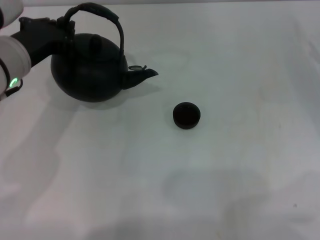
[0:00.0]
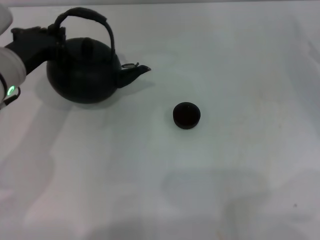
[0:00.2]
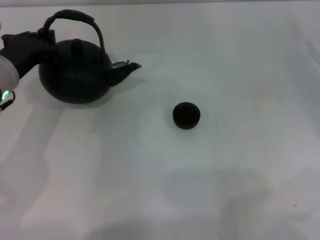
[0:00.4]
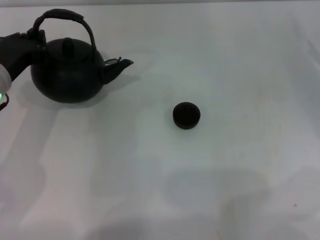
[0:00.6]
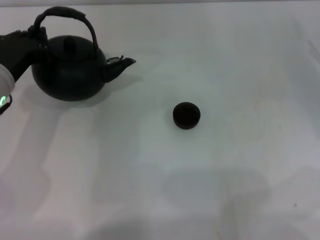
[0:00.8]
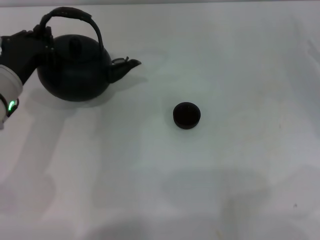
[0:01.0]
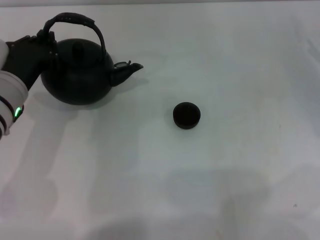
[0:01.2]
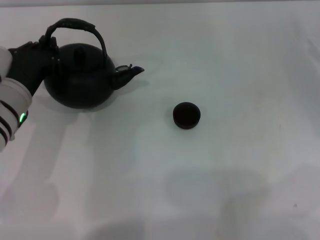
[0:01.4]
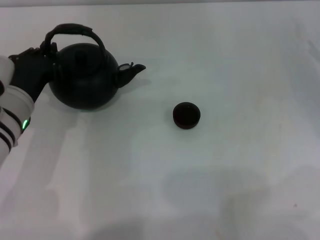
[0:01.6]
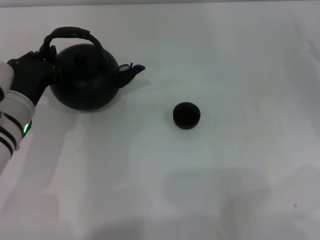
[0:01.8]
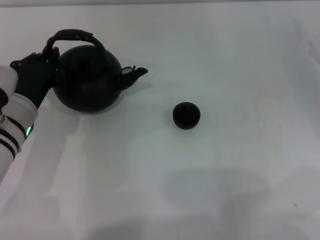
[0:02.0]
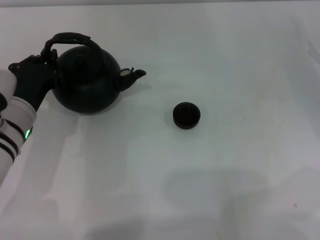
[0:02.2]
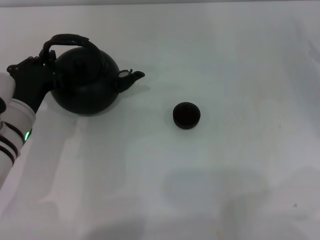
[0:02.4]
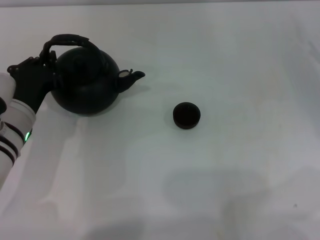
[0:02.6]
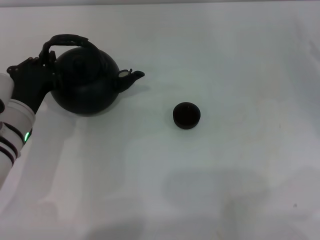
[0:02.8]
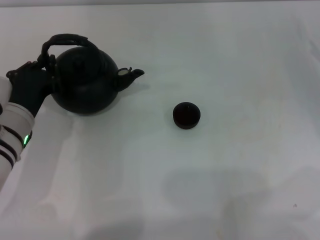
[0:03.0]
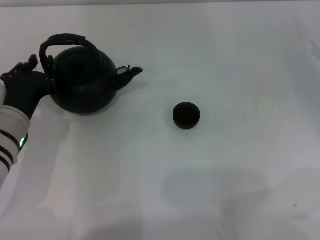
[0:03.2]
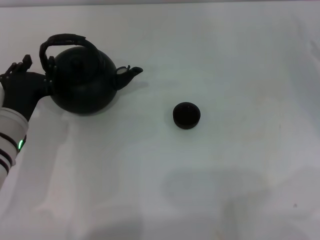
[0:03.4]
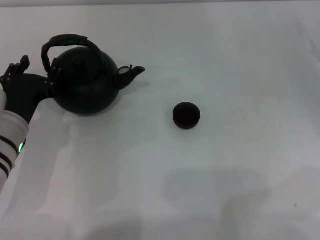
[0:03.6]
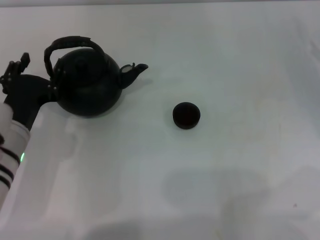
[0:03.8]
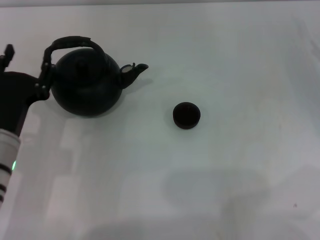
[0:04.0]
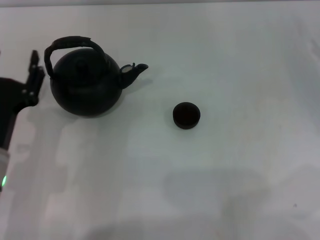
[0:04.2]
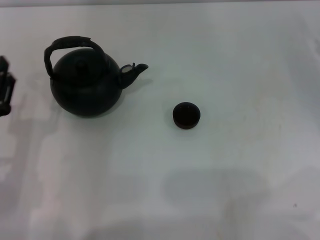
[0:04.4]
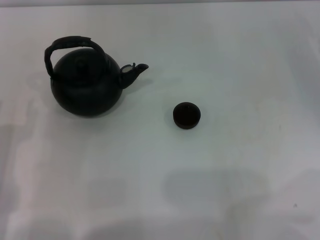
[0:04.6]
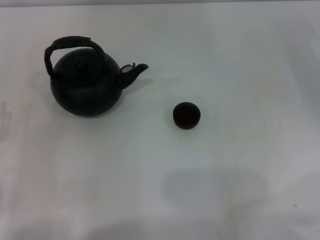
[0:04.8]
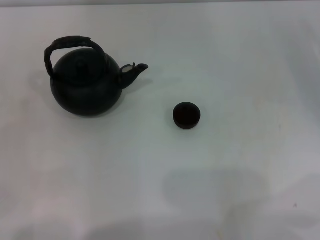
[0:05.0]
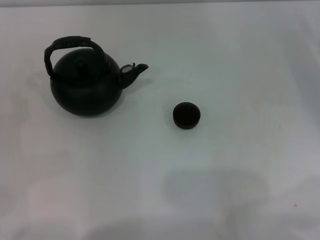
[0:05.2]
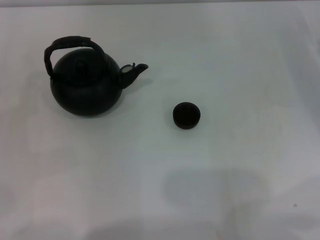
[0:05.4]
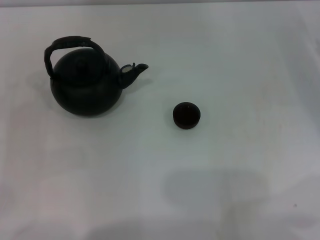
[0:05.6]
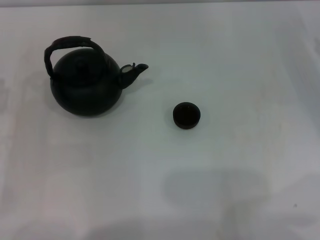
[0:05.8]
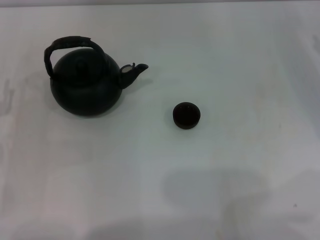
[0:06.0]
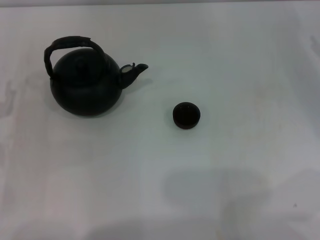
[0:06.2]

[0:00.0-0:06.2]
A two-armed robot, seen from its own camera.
Task of the whole recording: Grasp the handle of the teapot with one hand and pour tea into the teacup.
Step, 0:00.0 to 0:03.8: Put down the teapot with the left gripper.
0:00.0 to 0:01.6: The left gripper goes approximately 10 cm downward.
0:01.6 to 0:03.2: There are only small adjustments of the grippers.
0:03.2 to 0:04.6: The left gripper goes some 10 cm backward and to the left, and opens its fingers.

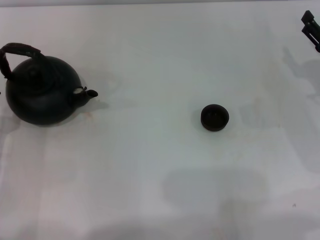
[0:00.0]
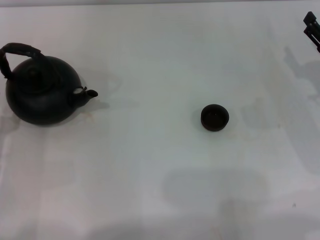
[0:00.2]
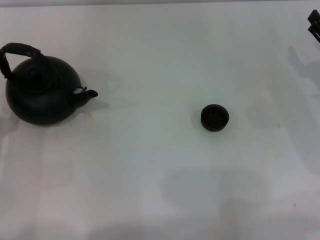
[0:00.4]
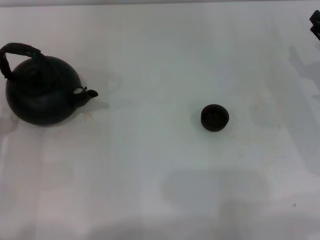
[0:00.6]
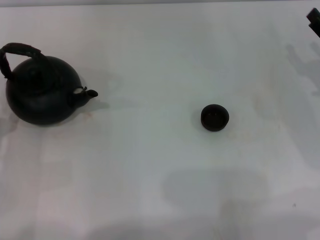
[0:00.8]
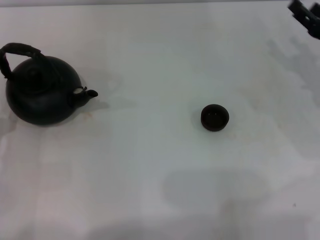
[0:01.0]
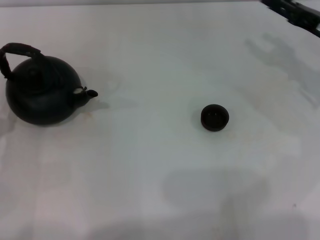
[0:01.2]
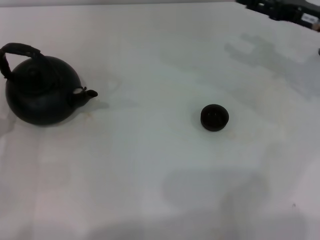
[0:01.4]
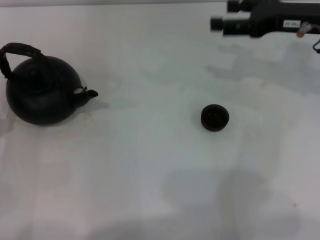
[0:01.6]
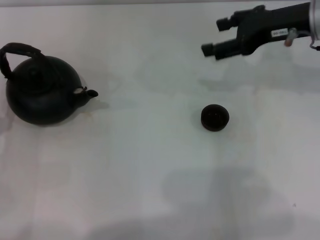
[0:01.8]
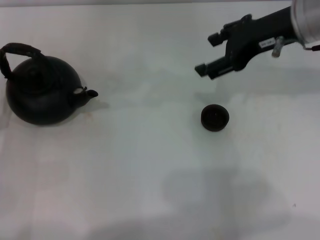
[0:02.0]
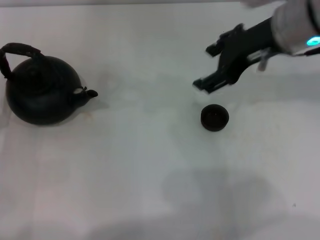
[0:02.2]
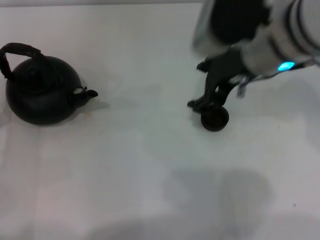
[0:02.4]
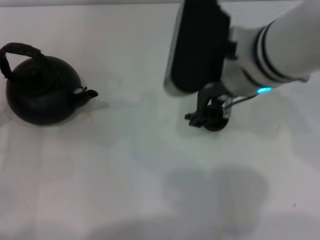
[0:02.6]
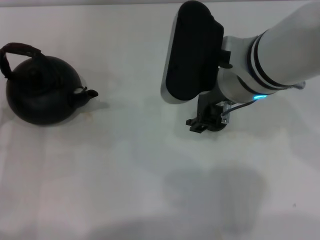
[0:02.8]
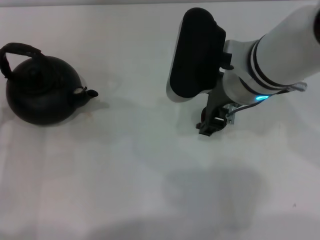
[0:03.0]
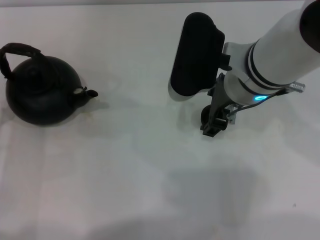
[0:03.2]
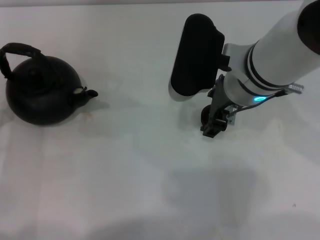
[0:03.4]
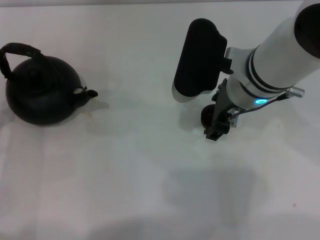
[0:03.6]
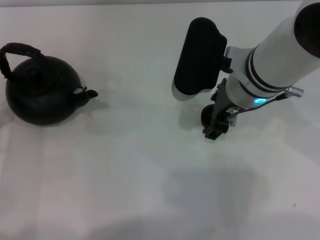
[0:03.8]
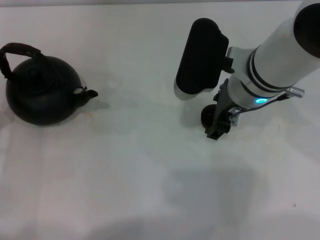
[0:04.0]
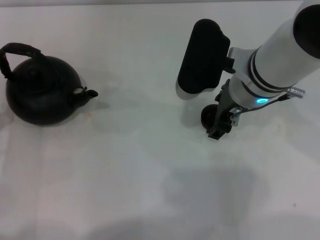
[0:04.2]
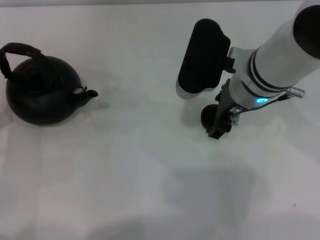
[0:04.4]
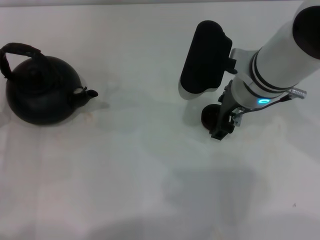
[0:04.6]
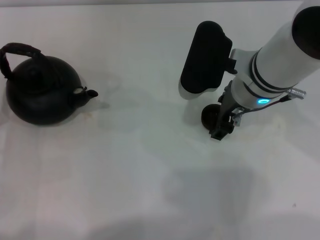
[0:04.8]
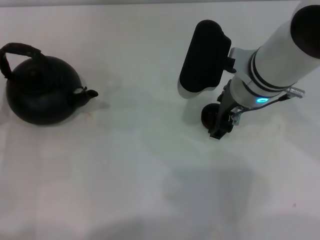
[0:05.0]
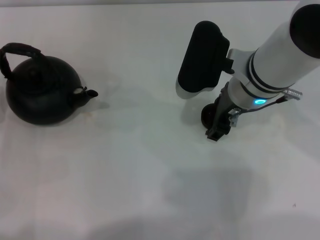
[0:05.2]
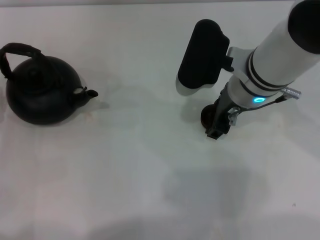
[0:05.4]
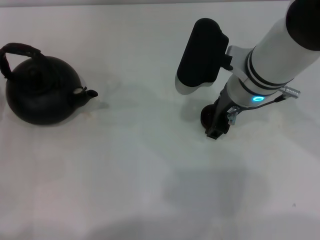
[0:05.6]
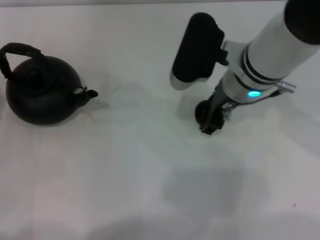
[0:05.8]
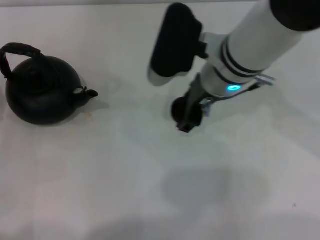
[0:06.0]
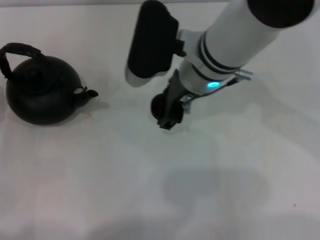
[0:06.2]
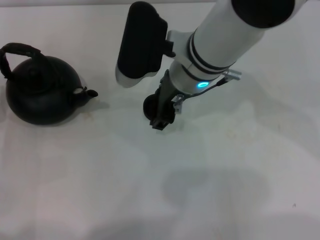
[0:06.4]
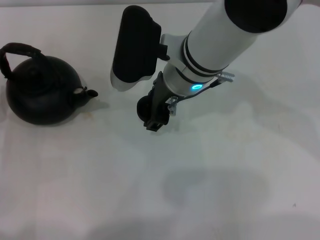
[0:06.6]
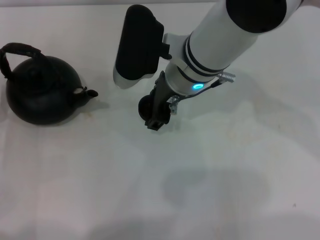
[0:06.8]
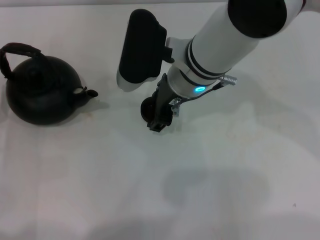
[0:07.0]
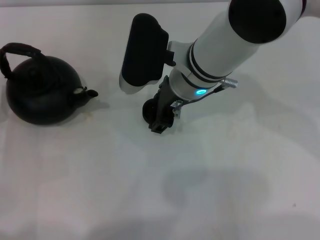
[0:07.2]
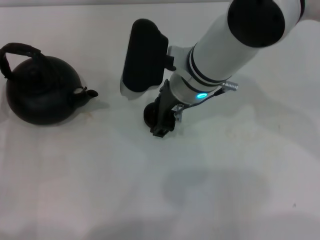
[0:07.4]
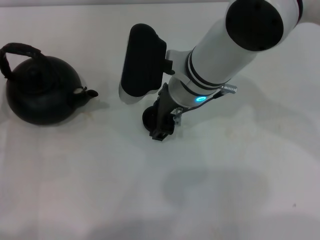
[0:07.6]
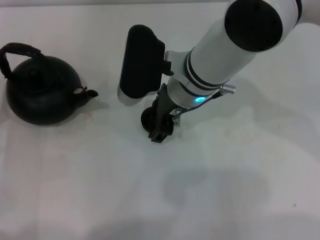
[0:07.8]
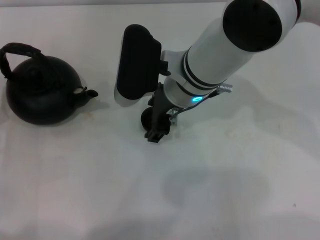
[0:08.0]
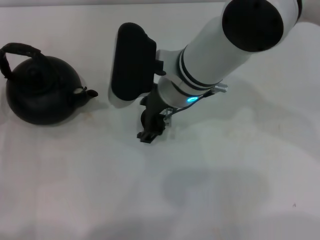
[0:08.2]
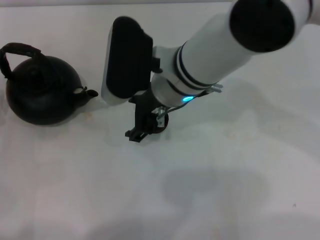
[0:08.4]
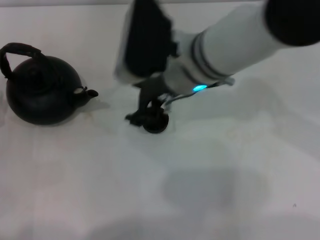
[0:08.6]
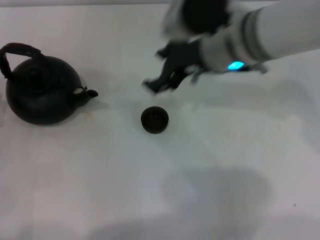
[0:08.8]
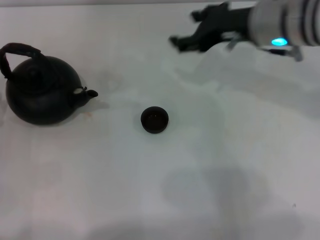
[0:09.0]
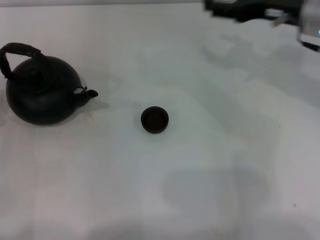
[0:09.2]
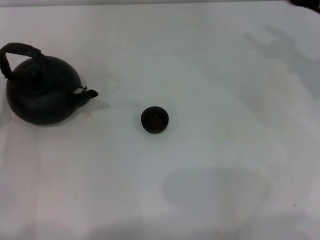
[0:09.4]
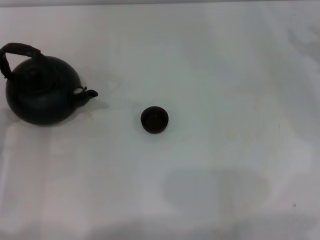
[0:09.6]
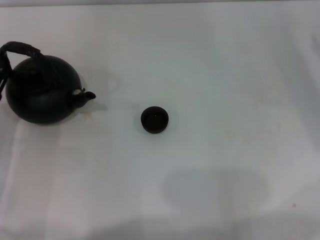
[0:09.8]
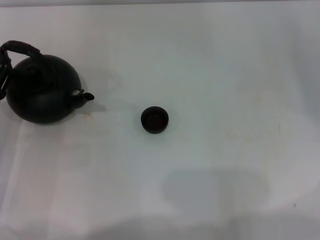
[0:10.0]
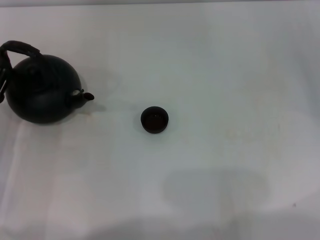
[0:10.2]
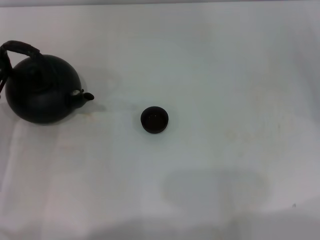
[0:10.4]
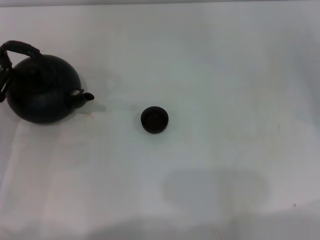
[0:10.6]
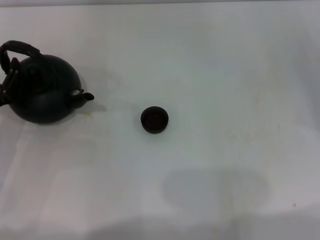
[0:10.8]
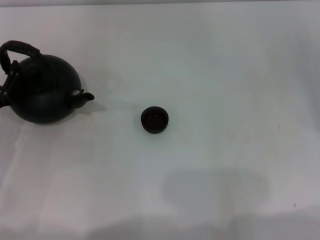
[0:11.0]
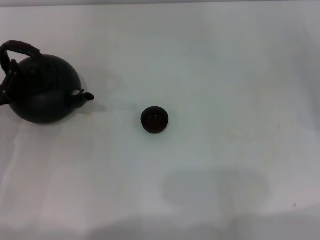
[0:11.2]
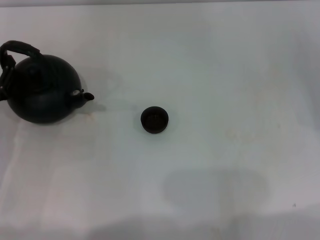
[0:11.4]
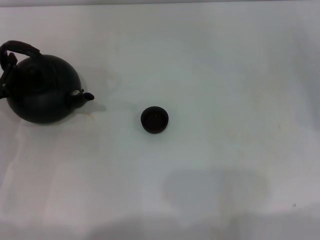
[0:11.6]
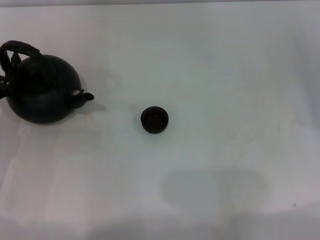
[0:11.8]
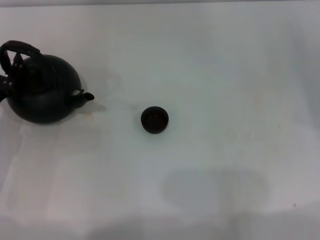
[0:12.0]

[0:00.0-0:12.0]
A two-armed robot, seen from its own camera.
Task of the whole recording: Grasp the handle of the teapot with one hand and pour tea into the teacup.
Step, 0:00.0 to 0:05.6: Pick up the teacup with the right gripper.
Step, 0:05.8 to 0:08.6: Place the teacup in the center of view with the right gripper.
0:00.0 to 0:01.6: The right gripper travels upward, forward and to the left by roughly 15 cm.
0:01.6 to 0:03.0: The right gripper shifts roughly 15 cm to the left and backward.
0:03.0 to 0:04.4: The grippers make only small movements.
0:04.4 to 0:06.0: The right gripper closes.
0:06.0 to 0:07.6: The grippers make only small movements.
0:07.6 to 0:09.0: The right gripper travels to the right and upward by roughly 15 cm, and opens up.
0:09.0 to 0:10.4: The right gripper travels to the right and downward by approximately 25 cm.

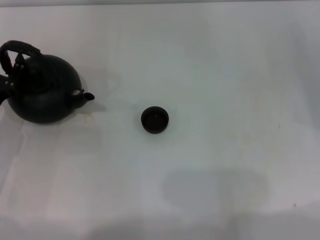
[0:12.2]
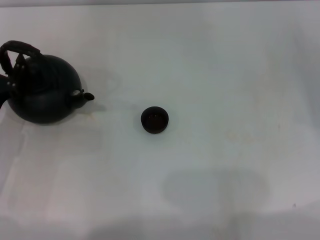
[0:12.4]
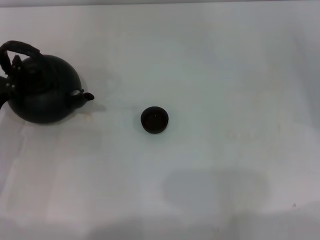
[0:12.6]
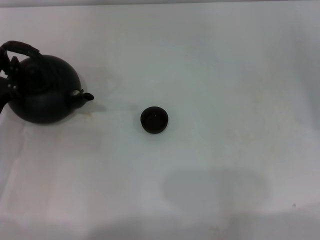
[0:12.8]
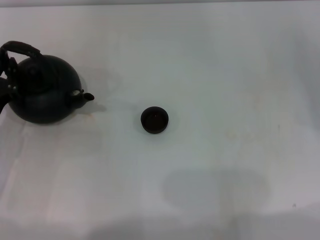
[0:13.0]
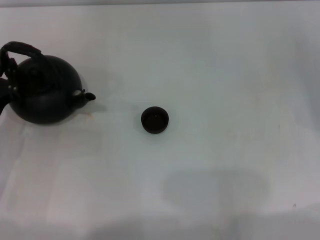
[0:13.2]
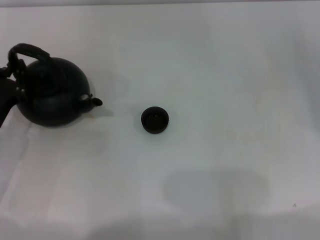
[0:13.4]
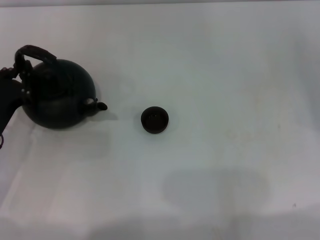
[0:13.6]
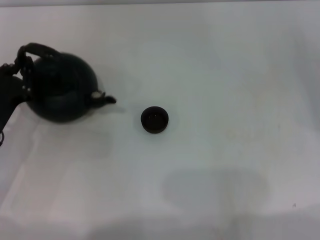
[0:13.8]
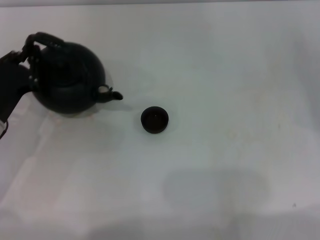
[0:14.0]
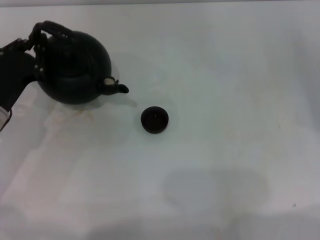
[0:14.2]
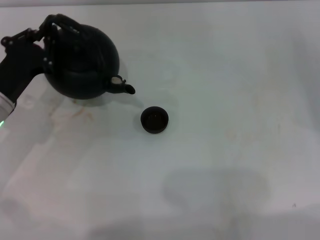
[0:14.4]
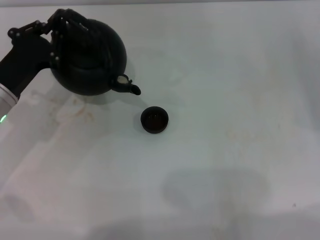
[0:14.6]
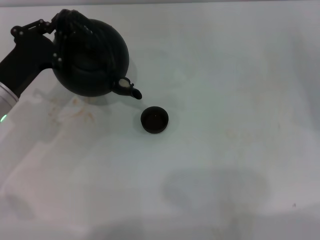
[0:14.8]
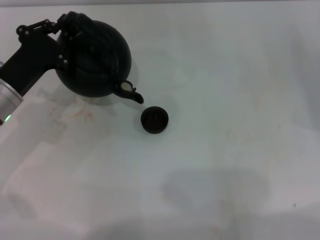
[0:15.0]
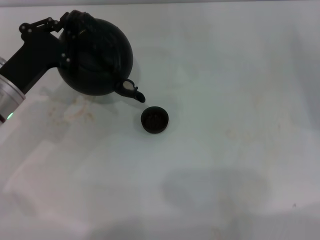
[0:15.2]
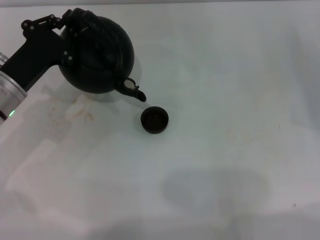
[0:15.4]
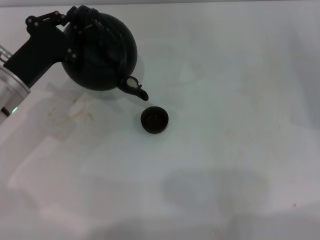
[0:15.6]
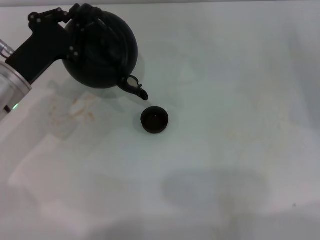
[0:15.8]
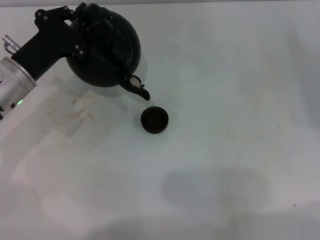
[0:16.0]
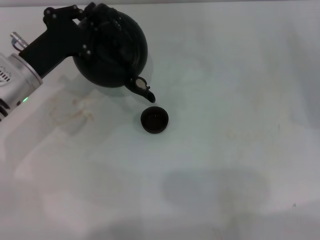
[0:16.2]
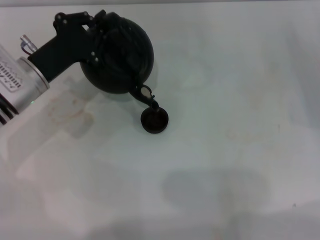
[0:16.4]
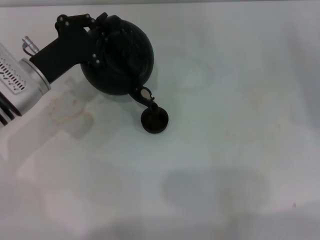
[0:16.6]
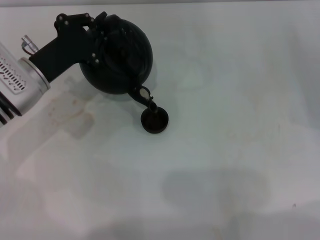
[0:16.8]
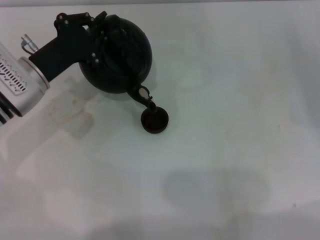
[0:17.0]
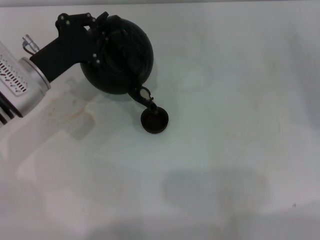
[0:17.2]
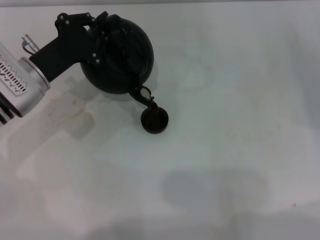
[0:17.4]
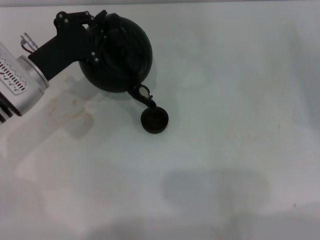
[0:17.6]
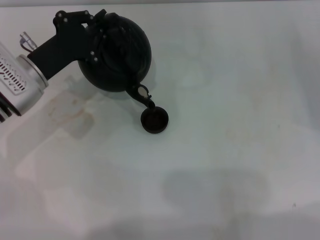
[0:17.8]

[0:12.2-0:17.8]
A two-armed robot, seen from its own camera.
Task of the whole recording: Grasp the handle of the teapot with one hand and pour tea into the teacup.
Step, 0:12.2 to 0:14.8: Pick up the teapot with the left gripper.
0:12.2 to 0:13.6: The left gripper closes up.
0:13.6 to 0:15.0: The left gripper shifts about 5 cm forward.
0:15.0 to 0:16.4: The grippers move only a little.
0:16.4 to 0:17.8: Both grippers stay about where they are.
